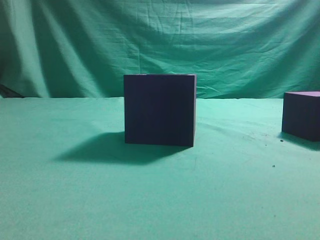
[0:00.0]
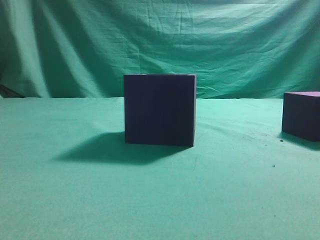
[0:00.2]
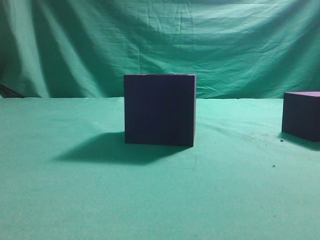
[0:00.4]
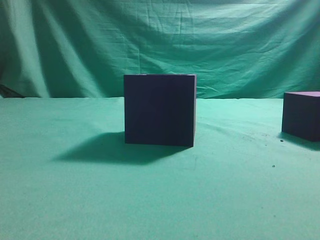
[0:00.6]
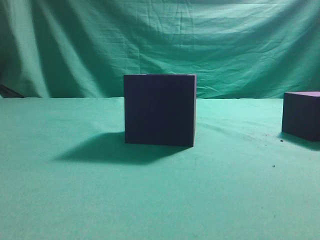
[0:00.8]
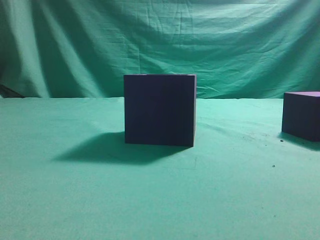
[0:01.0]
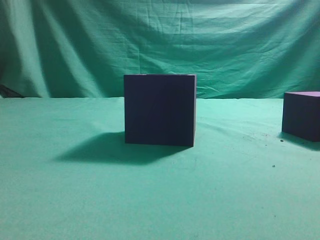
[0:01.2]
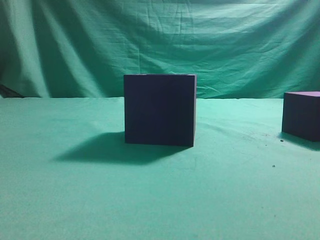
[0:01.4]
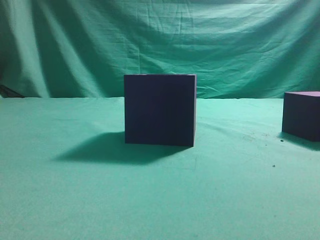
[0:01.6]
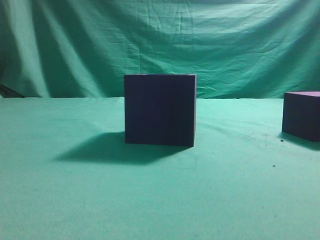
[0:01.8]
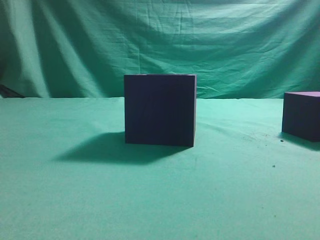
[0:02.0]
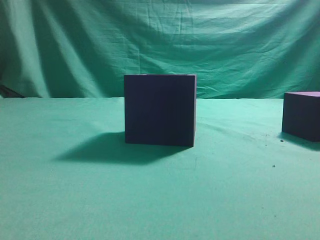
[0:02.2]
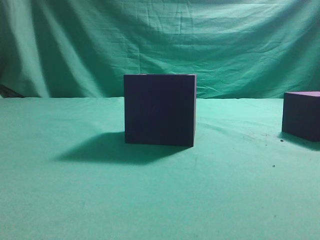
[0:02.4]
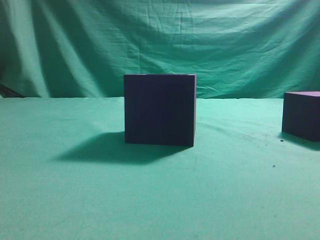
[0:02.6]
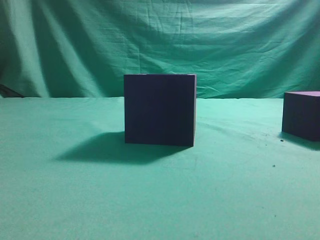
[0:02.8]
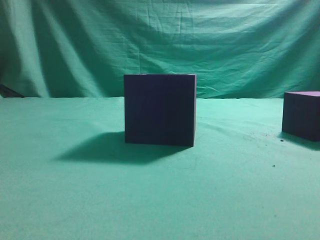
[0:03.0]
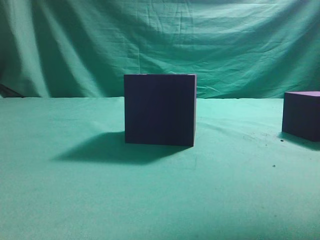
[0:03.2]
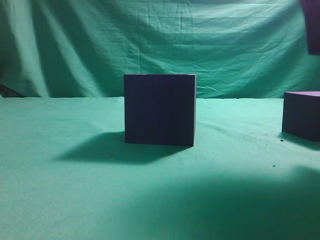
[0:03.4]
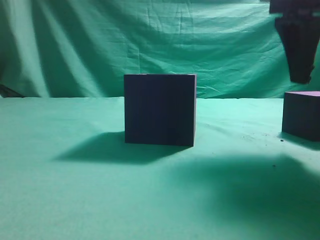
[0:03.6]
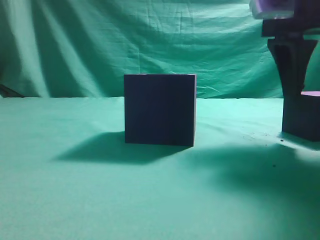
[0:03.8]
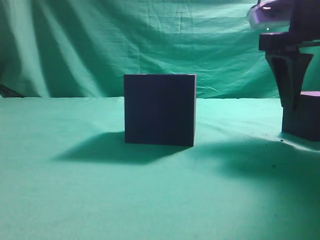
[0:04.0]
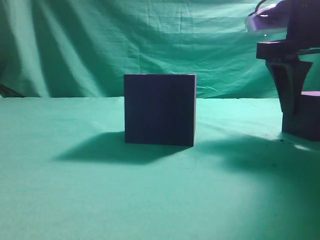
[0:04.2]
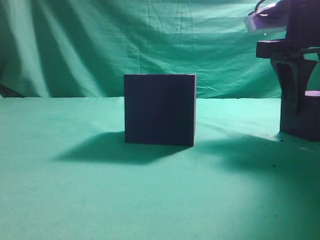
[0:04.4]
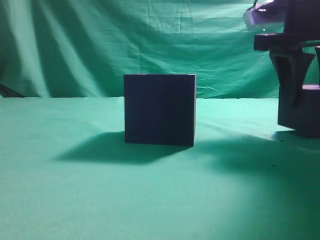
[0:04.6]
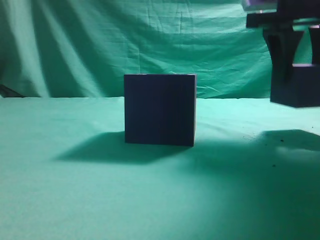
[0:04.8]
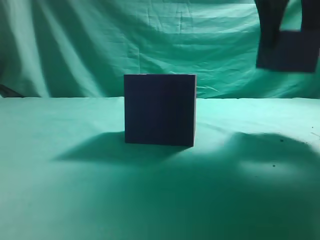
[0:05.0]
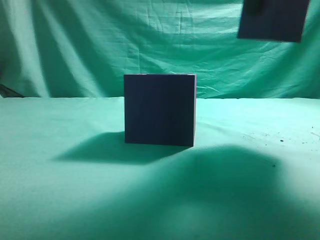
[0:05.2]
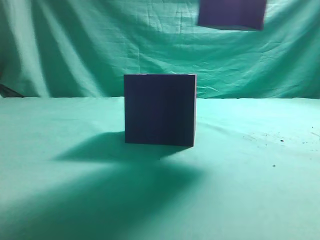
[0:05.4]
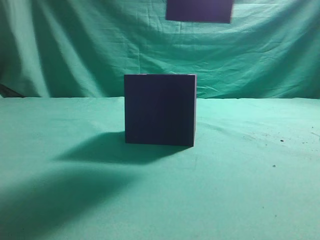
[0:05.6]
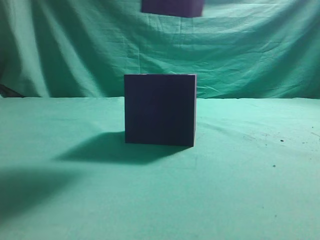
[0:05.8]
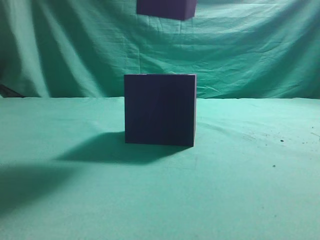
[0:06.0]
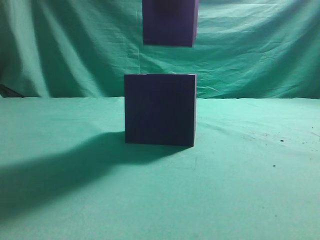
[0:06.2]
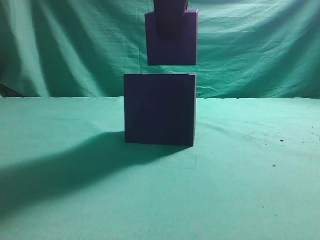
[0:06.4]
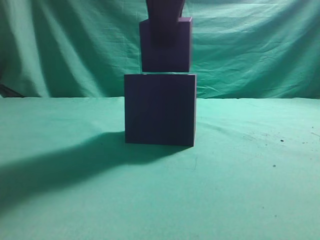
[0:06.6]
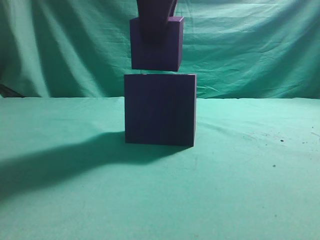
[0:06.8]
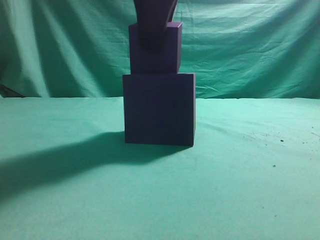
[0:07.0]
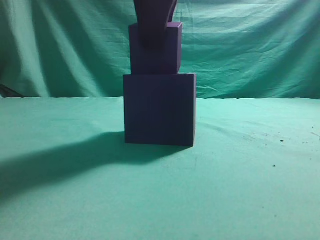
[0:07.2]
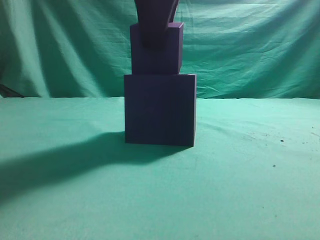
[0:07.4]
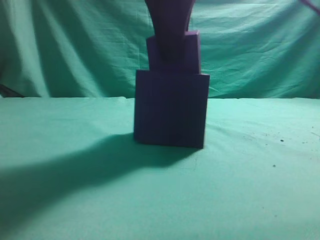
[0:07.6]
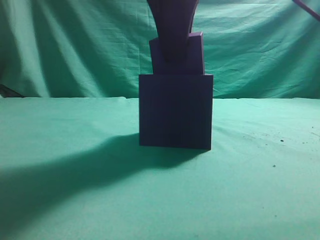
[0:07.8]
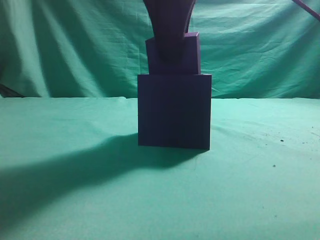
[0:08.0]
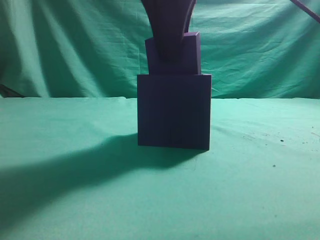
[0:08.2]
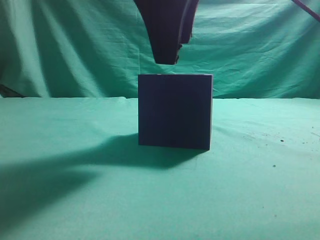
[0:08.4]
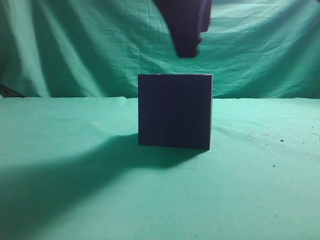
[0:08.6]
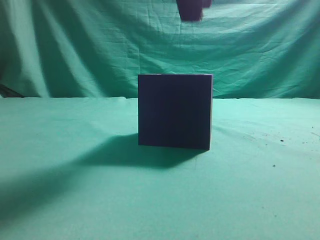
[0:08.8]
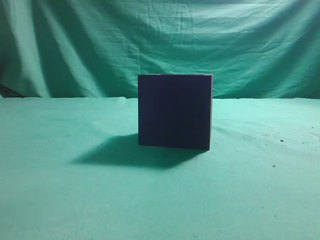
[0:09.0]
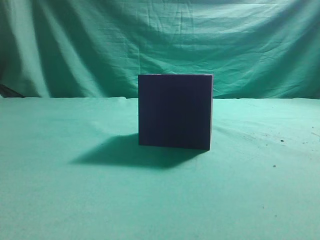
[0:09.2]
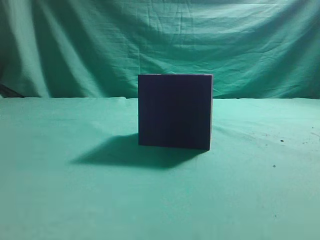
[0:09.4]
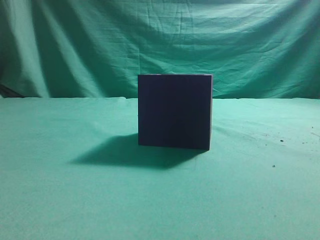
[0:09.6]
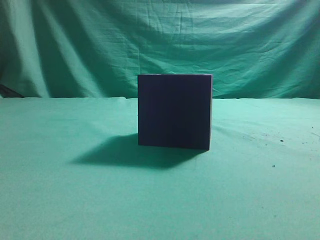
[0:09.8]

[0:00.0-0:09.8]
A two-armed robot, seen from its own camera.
Task of the whole recording: pick up the cube block and place it into the cube groove.
Step, 0:00.0 to 0:04.8: Grasp the cube.
Step, 0:05.0 to 0:08.6: Place cube into the cube-shaped recess.
0:02.8 to 0:04.2: The right gripper travels forward, downward and to the left by about 20 cm, and opens up.
0:04.2 to 0:05.6: The right gripper goes about 20 cm upward, to the left and backward.
0:05.6 to 0:07.0: The right gripper heads downward and to the left, covering roughly 10 cm.
0:07.0 to 0:08.4: The grippers make only small movements.
0:08.4 to 0:09.8: The right gripper is displaced backward, upward and to the right by some 30 cm, and closes.
